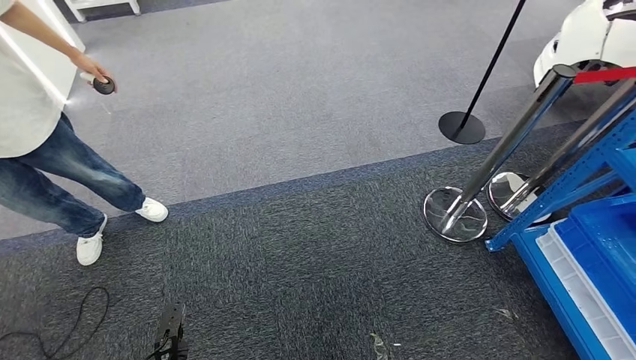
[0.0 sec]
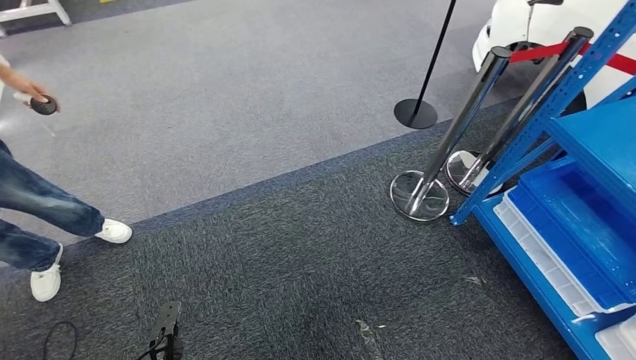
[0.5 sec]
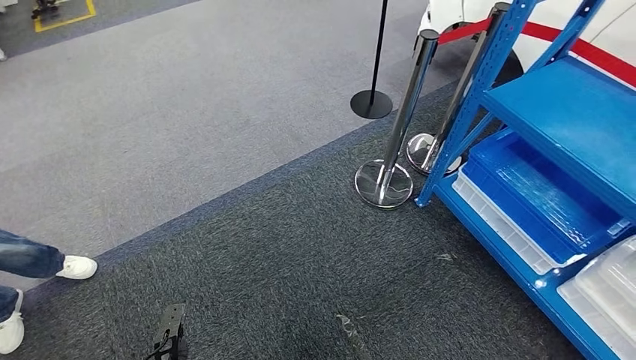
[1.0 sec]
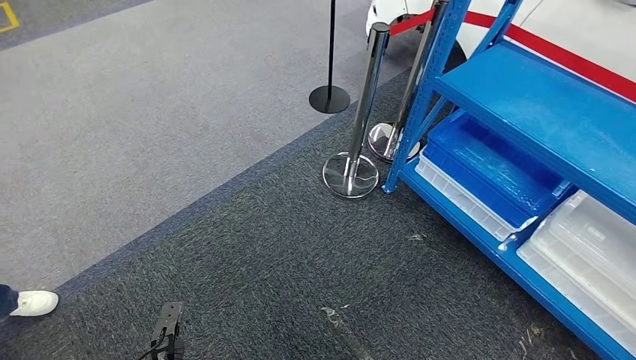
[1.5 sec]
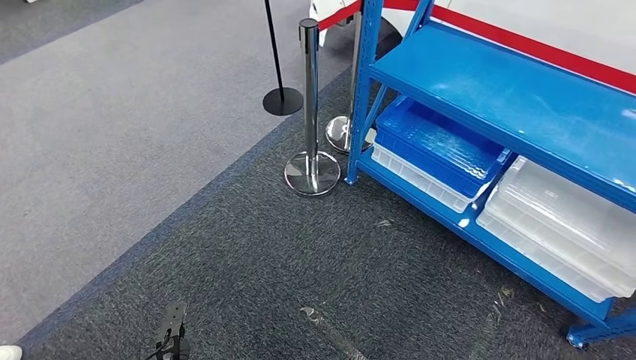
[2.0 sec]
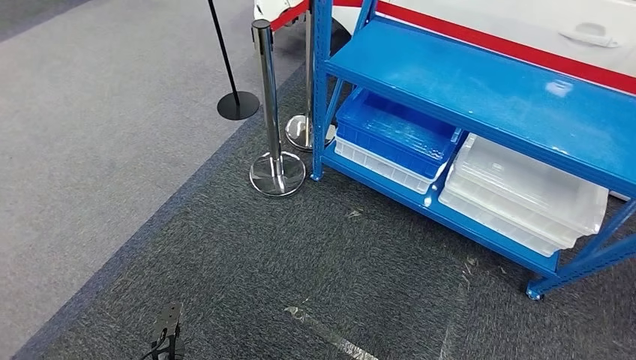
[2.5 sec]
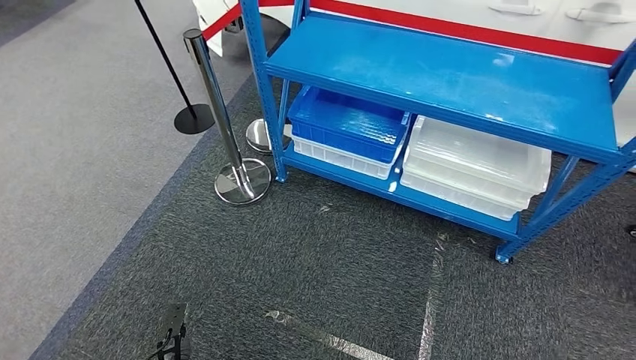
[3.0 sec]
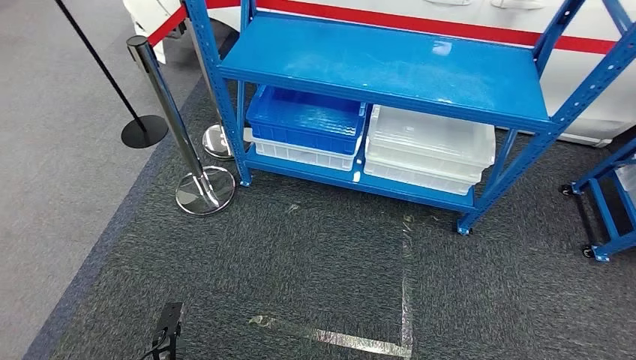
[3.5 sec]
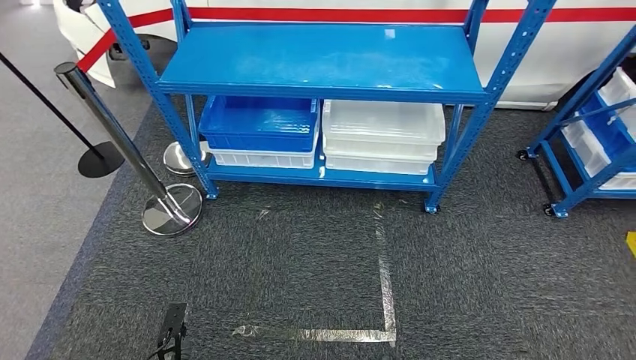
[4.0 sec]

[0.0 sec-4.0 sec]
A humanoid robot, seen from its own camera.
Step, 0.0 sec to 4.0 sec: Return to the initial position at the shelf.
